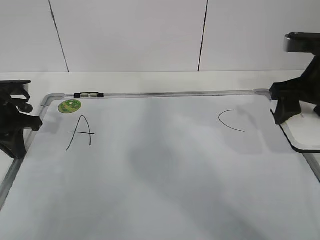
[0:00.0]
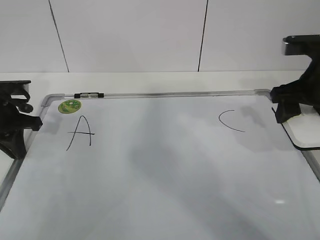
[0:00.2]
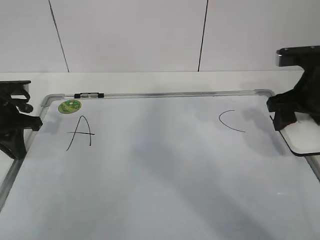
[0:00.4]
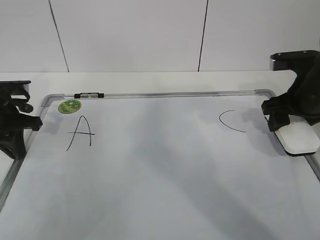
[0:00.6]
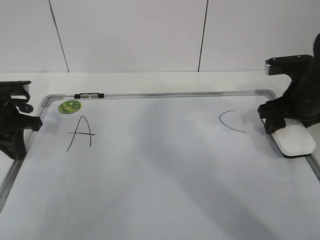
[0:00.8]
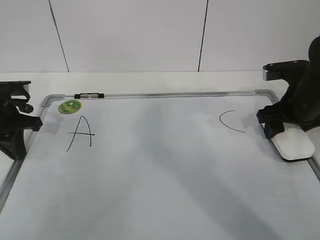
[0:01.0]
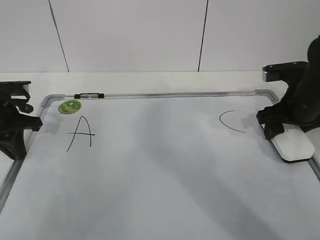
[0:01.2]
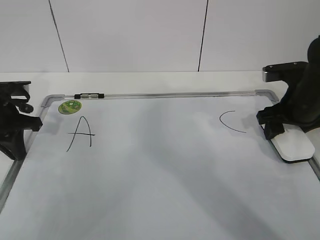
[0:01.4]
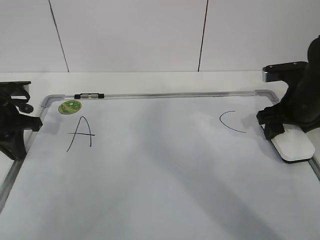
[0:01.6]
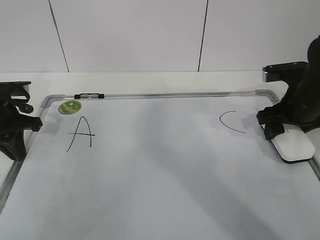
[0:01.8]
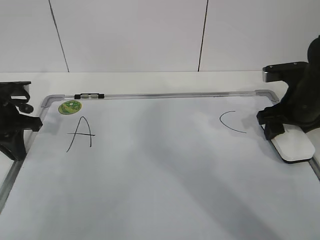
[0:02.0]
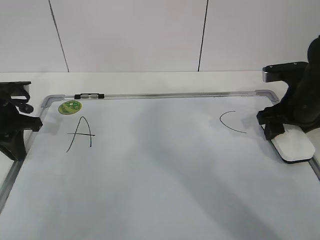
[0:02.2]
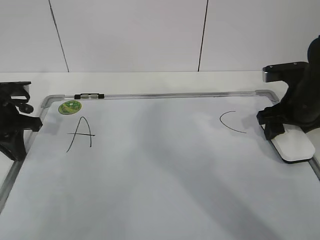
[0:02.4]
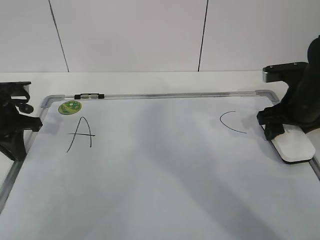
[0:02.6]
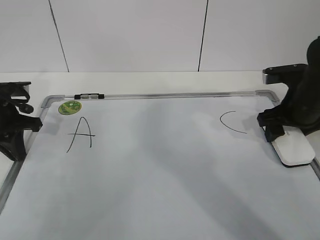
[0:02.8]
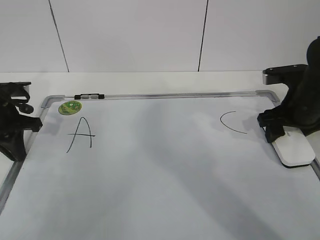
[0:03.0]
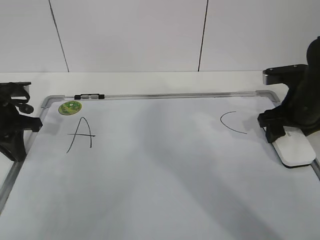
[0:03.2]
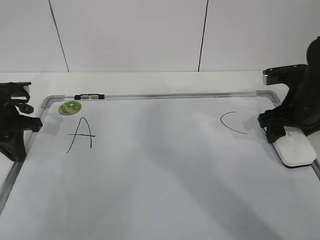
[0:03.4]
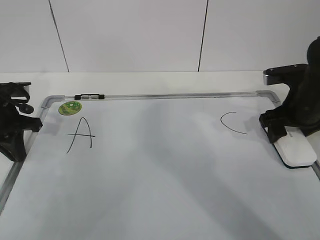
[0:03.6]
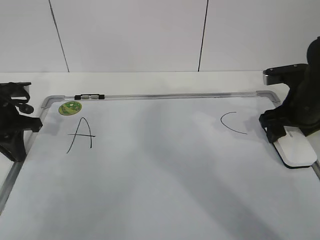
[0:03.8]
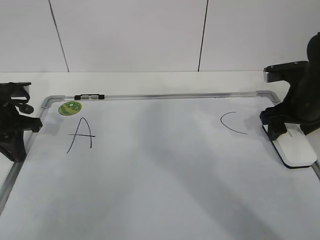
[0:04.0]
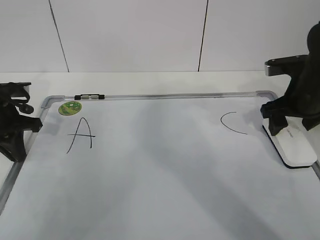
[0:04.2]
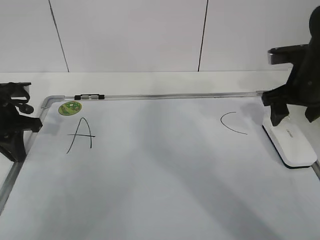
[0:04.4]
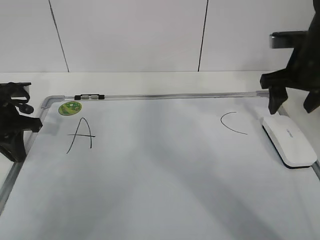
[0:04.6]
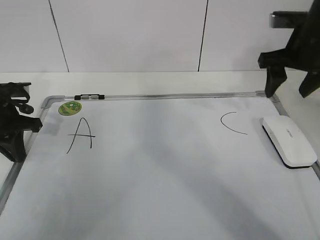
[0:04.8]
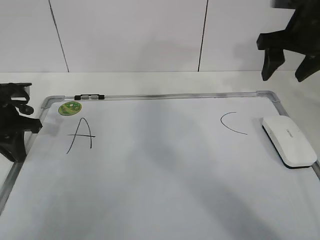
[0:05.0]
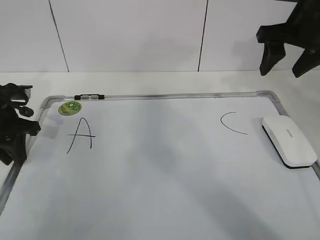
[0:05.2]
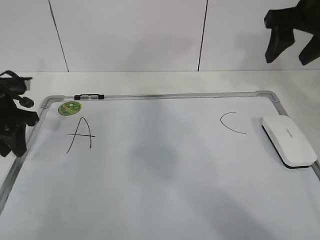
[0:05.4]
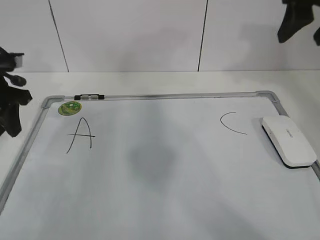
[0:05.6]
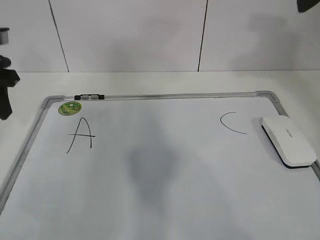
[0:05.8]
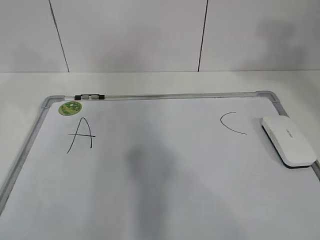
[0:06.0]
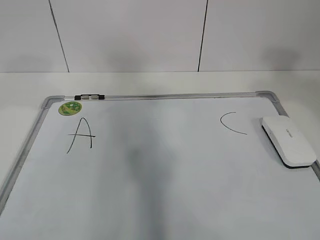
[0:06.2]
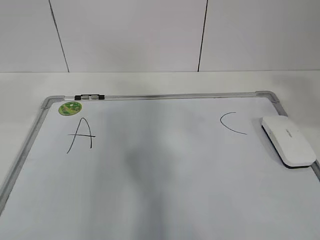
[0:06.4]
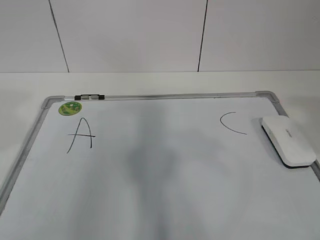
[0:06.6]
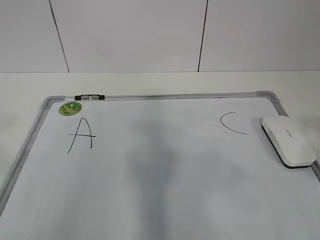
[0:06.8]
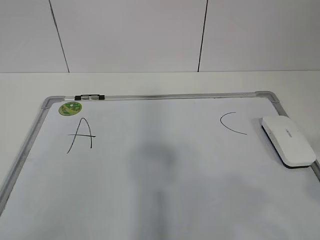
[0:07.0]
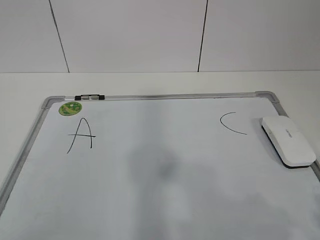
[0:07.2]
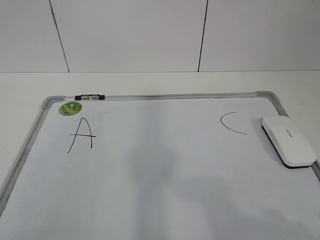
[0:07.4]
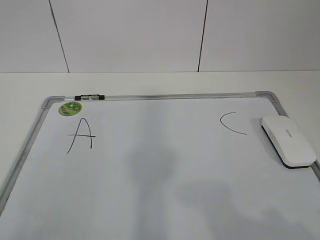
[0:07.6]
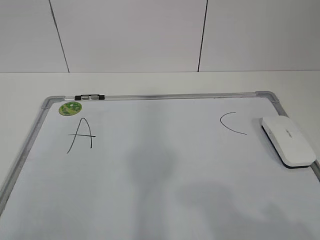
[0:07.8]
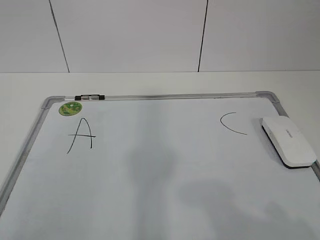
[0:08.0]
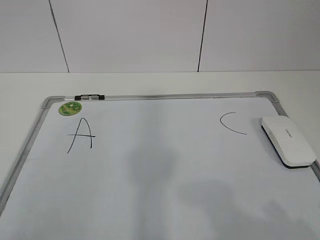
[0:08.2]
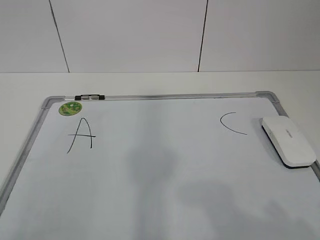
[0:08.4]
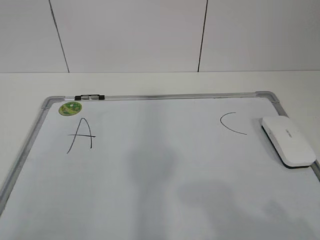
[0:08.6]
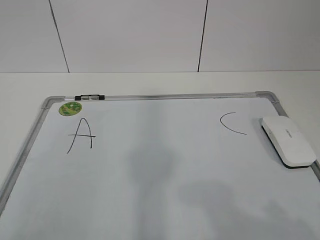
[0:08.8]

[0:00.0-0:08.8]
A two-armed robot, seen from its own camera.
Task of the whole recording: pick up the eraser on the blackboard and erase the letter "B".
0:00.0 to 0:01.4: The right gripper travels downward by approximately 10 cm.
0:01.4 to 0:03.0: Both grippers stay about where they are.
0:03.0 to 0:04.4: The right gripper opens.
0:04.4 to 0:05.8: The left gripper shifts roughly 10 cm upward, and opens up. The right gripper travels upward by about 20 cm, and closes its fingers.
0:05.8 to 0:07.4: The left gripper is displaced backward by approximately 35 cm. The right gripper heads backward and downward, covering about 35 cm.

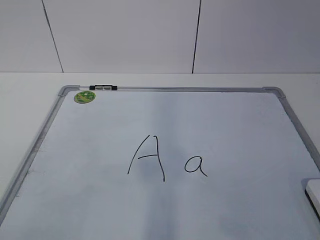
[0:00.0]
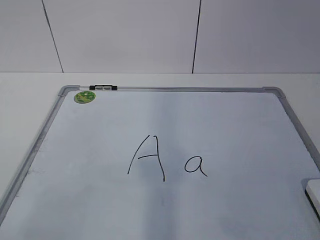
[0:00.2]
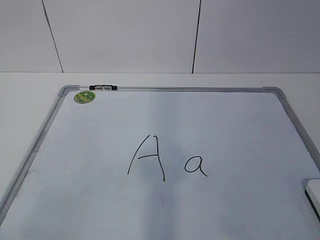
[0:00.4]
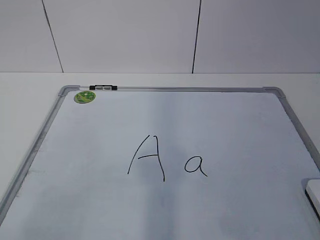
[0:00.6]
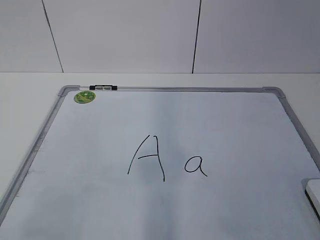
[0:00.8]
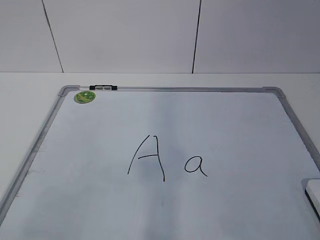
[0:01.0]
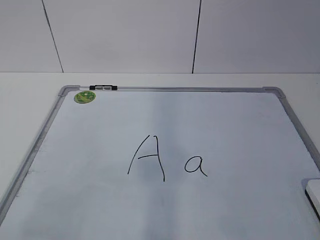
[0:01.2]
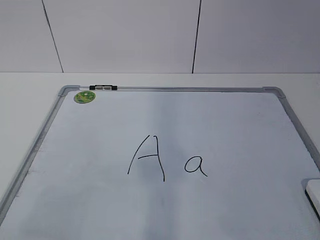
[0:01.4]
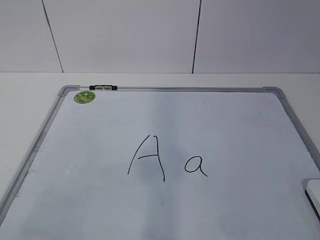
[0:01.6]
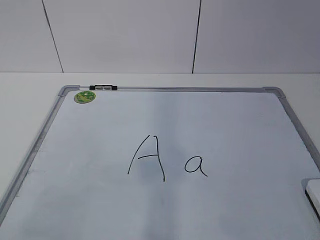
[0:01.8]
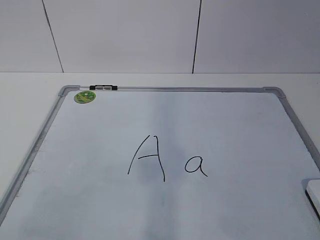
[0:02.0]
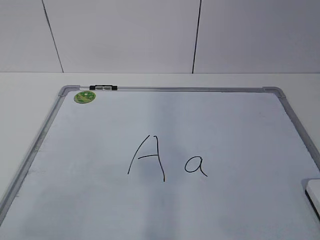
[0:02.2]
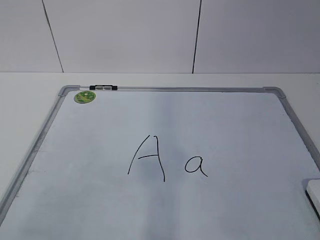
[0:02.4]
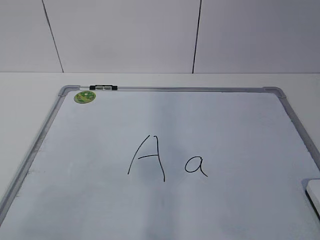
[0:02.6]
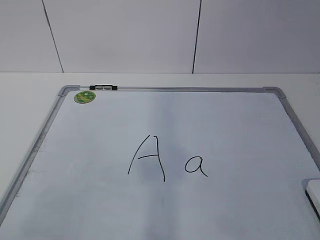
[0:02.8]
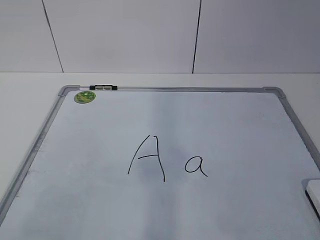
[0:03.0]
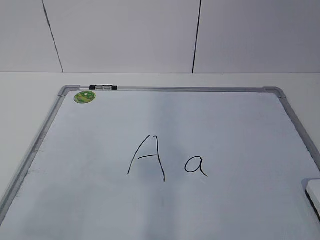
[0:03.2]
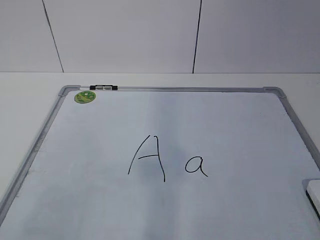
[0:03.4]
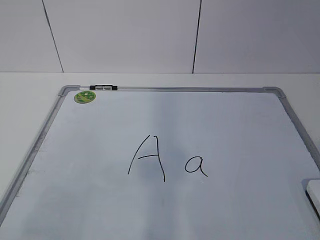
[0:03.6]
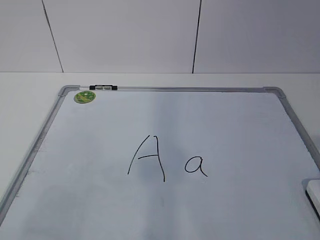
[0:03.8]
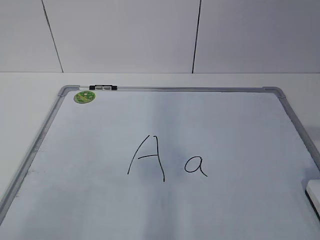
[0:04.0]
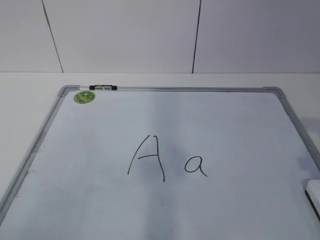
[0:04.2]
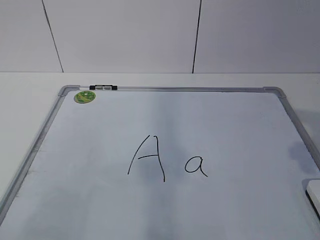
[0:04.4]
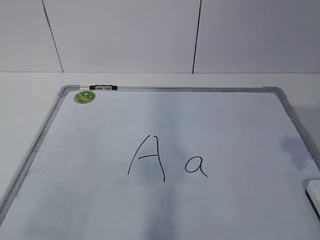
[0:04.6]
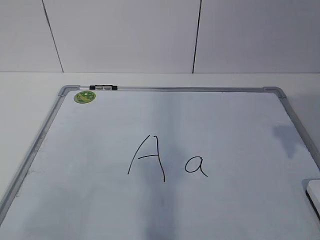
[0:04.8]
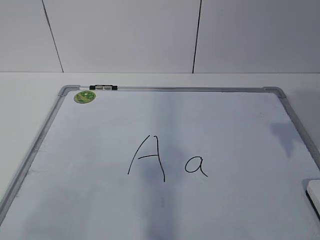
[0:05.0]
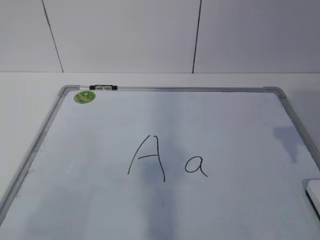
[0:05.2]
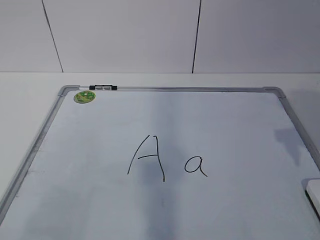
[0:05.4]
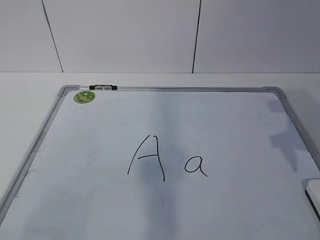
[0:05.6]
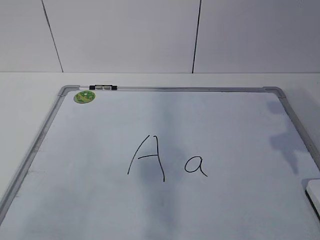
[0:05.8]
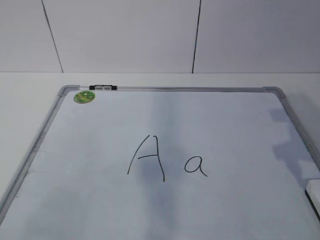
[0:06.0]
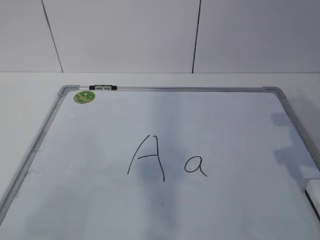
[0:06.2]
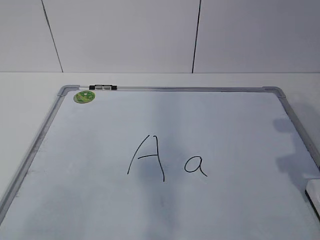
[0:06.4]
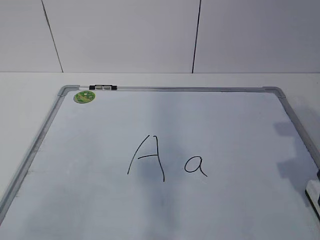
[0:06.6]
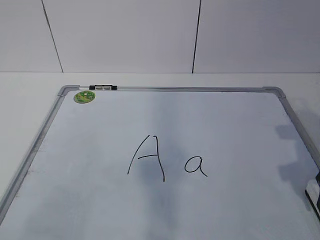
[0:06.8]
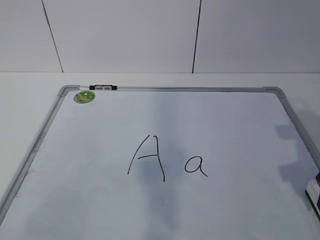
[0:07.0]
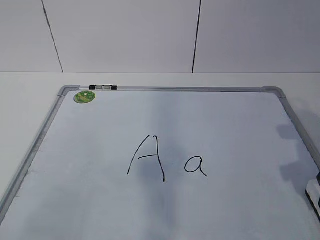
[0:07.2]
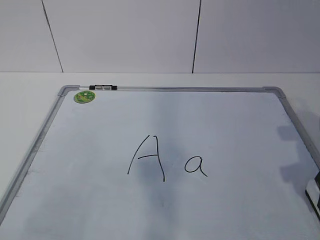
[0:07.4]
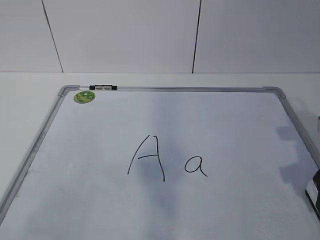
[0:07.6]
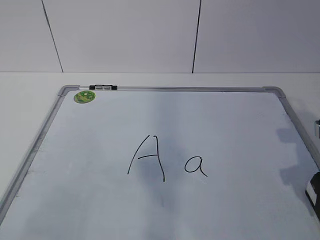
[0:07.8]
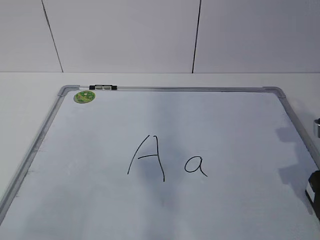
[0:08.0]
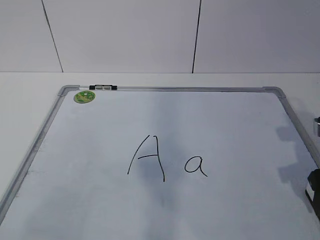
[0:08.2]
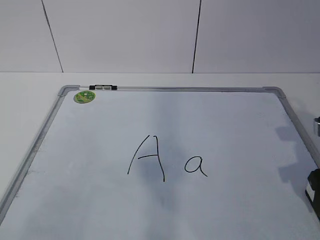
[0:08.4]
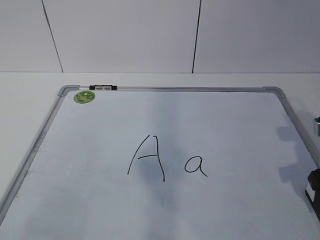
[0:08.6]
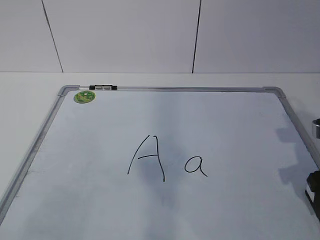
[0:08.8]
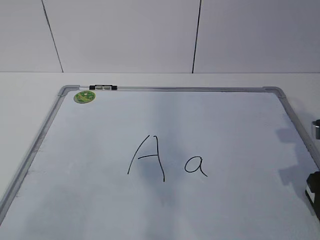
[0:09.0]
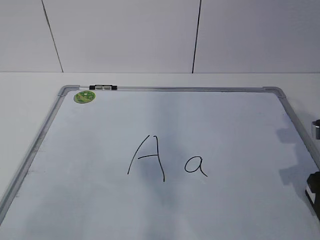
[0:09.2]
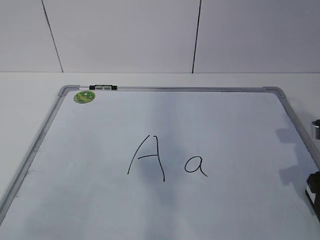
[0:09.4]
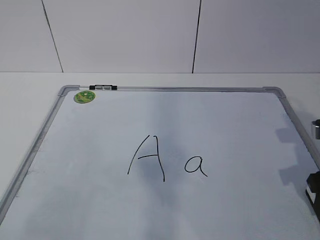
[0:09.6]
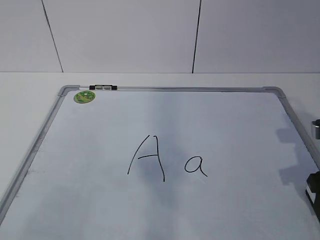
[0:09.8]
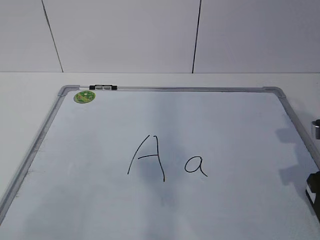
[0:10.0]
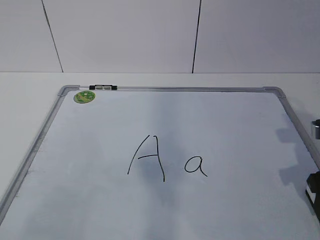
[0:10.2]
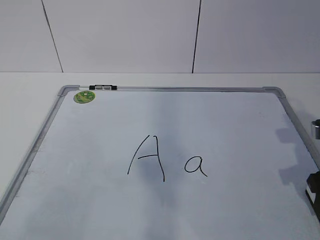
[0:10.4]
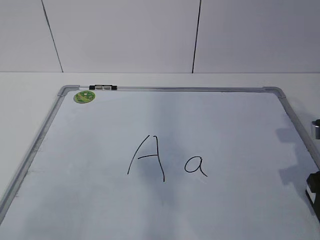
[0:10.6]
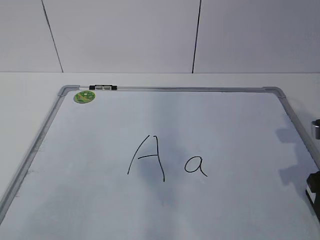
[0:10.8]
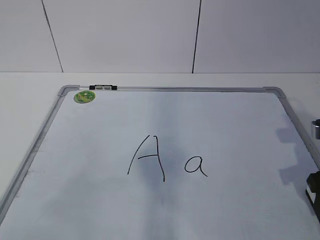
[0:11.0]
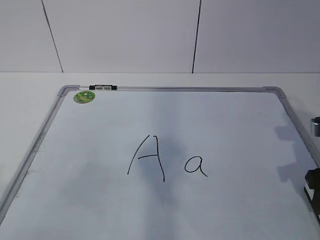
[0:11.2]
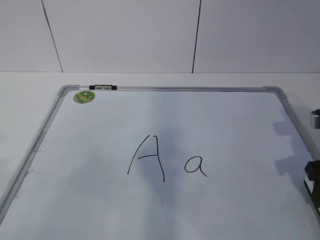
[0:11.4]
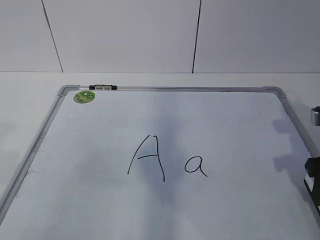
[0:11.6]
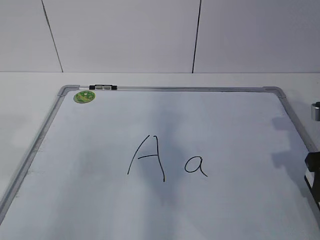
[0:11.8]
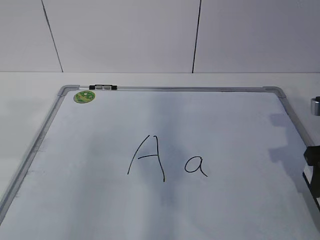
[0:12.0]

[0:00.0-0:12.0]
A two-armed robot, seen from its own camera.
Task of the whole recording: pick up the eraser on the blackboard and erase the letter "a".
0:01.6 to 0:03.0: The two grippers keep their place.
0:06.0 to 0:07.6: The right gripper travels downward by roughly 5 cm.

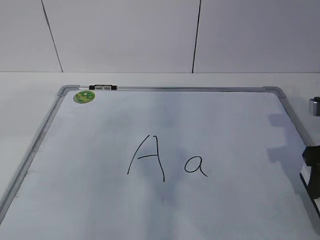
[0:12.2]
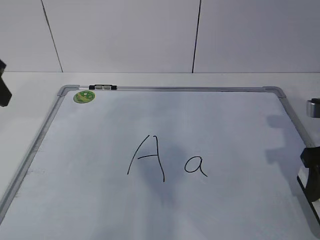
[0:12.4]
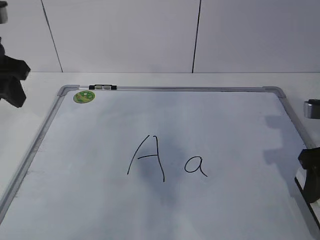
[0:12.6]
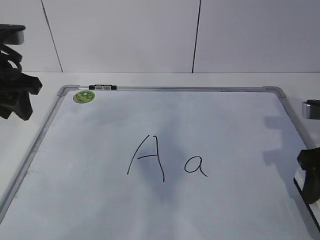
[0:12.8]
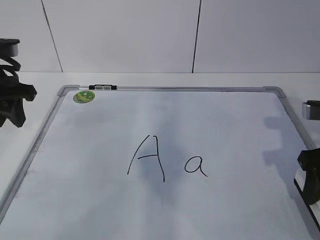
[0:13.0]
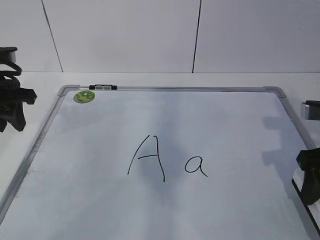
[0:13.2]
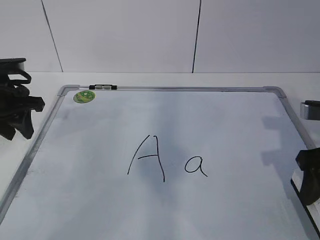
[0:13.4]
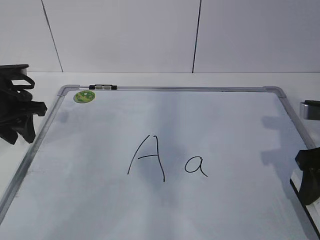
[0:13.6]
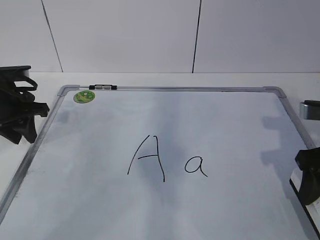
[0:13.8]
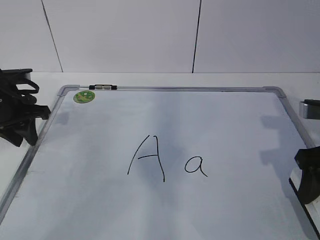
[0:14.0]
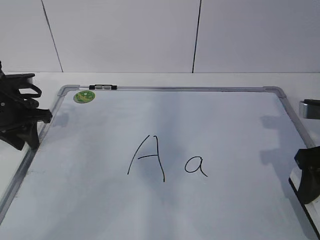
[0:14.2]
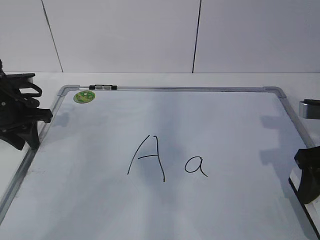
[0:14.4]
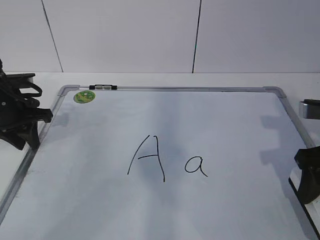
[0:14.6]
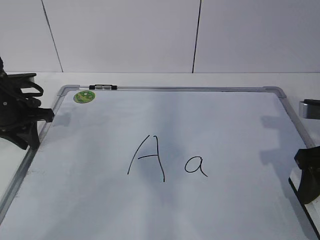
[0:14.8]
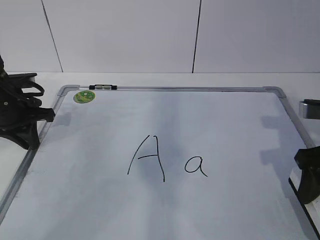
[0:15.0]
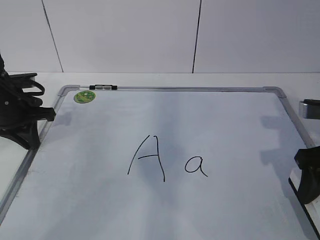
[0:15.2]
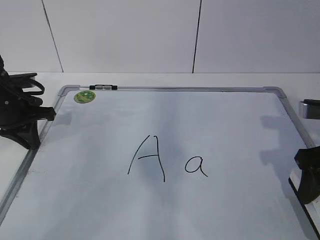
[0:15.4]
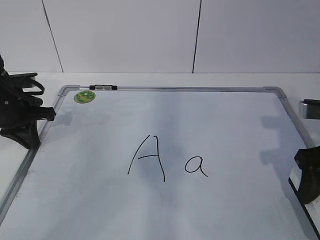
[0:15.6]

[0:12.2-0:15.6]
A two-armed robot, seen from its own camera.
Task of the whole recording: pick up the eraser on the blackboard and erase the letter "a".
0:12.2 to 0:13.8: The left gripper shifts some 20 cm forward and downward.
0:13.8 to 0:15.6: The left gripper closes up.
